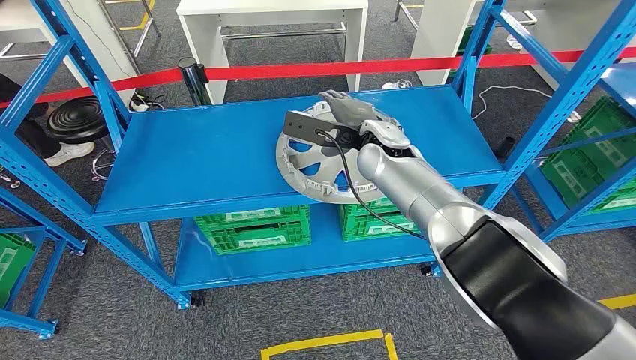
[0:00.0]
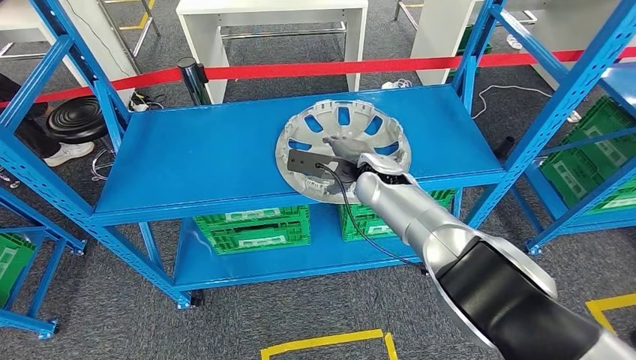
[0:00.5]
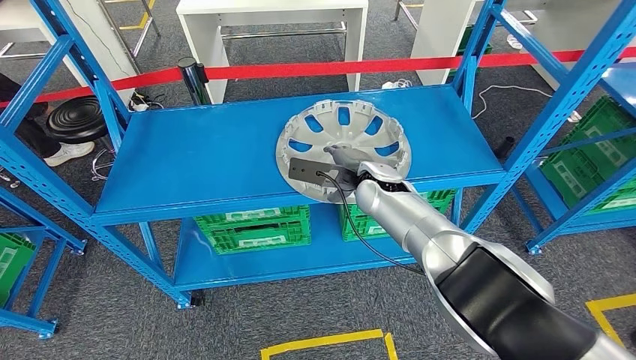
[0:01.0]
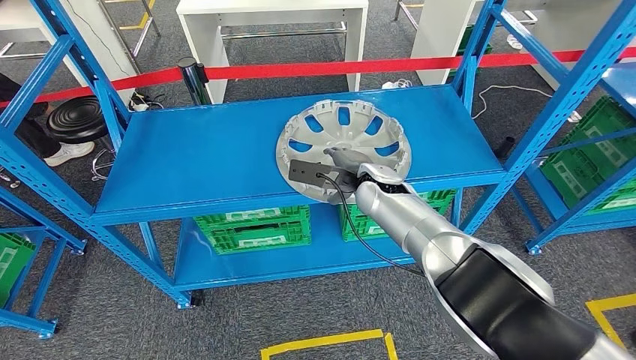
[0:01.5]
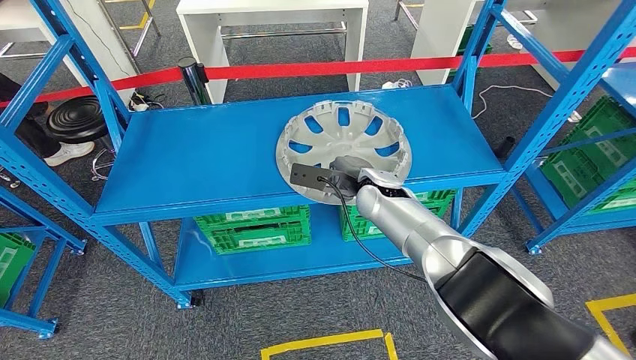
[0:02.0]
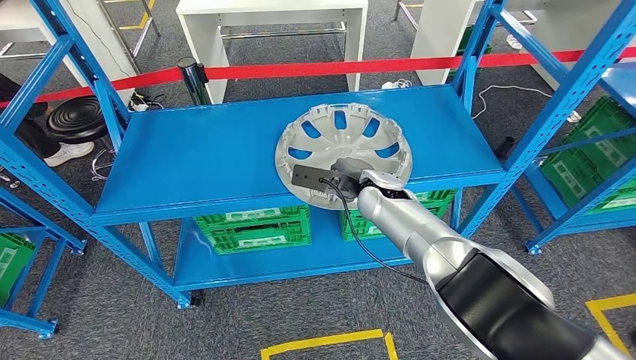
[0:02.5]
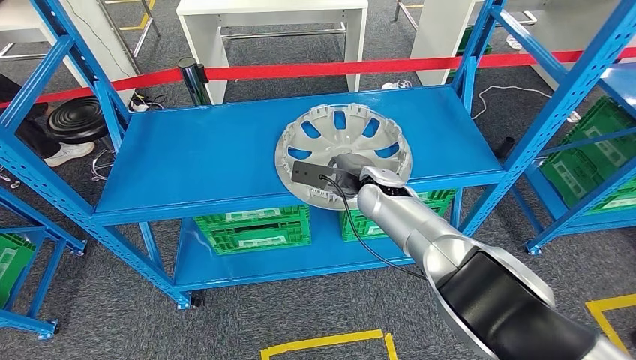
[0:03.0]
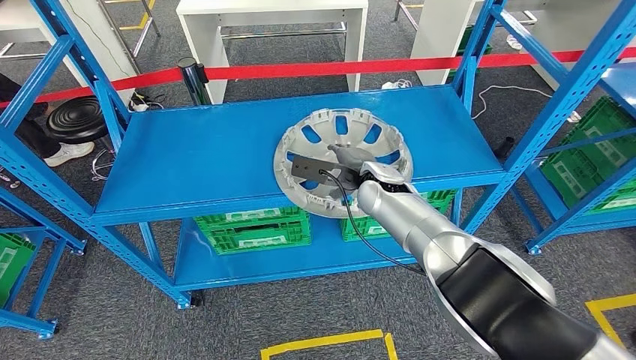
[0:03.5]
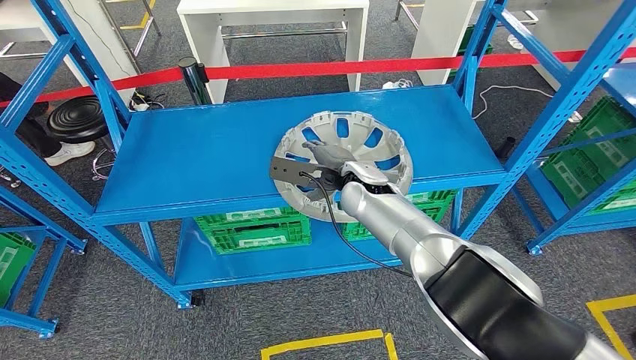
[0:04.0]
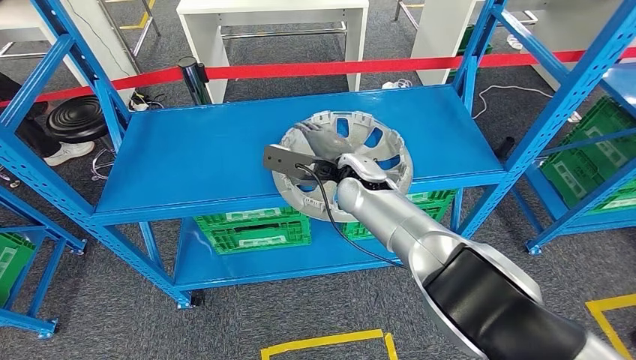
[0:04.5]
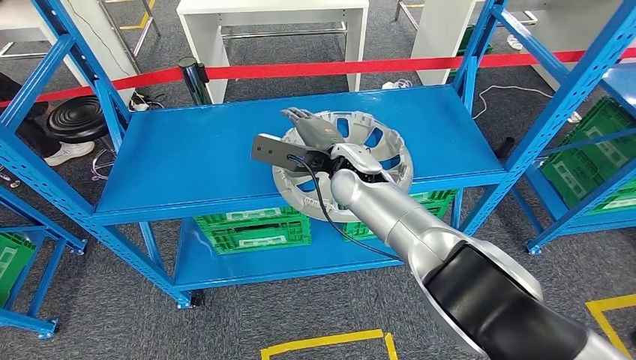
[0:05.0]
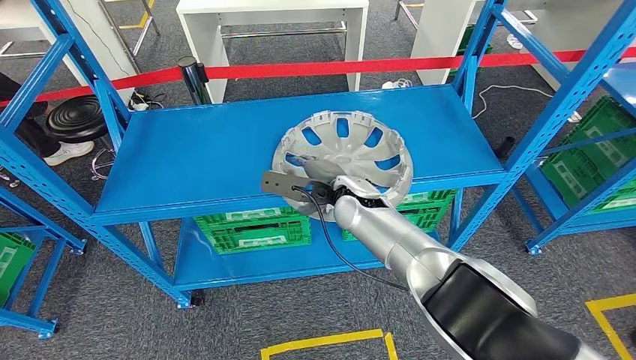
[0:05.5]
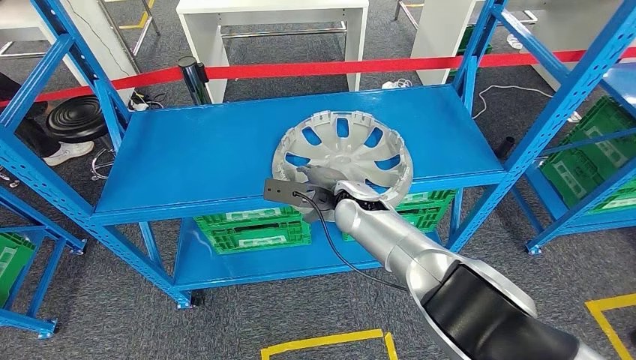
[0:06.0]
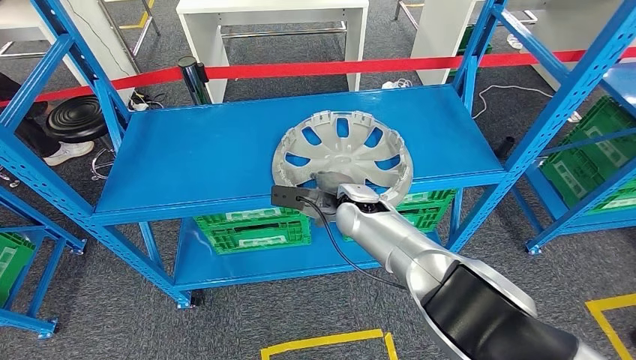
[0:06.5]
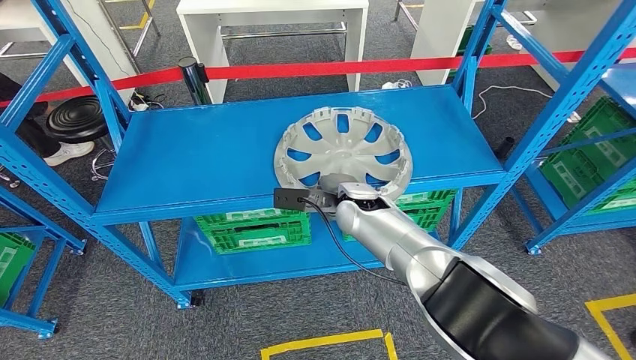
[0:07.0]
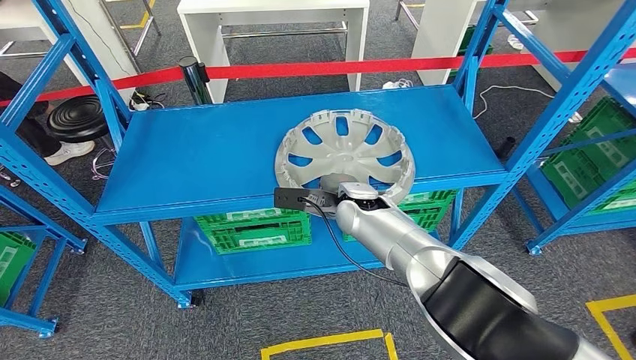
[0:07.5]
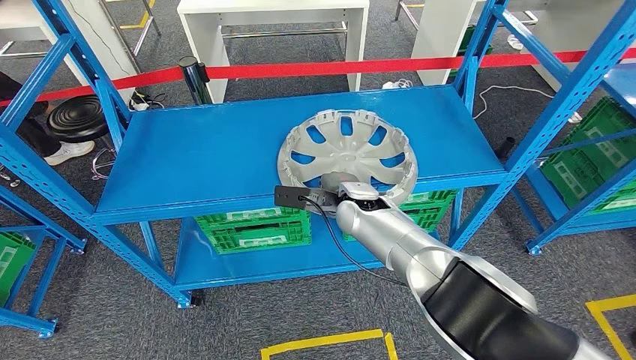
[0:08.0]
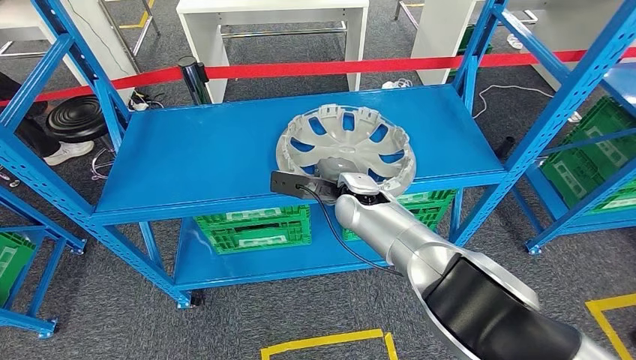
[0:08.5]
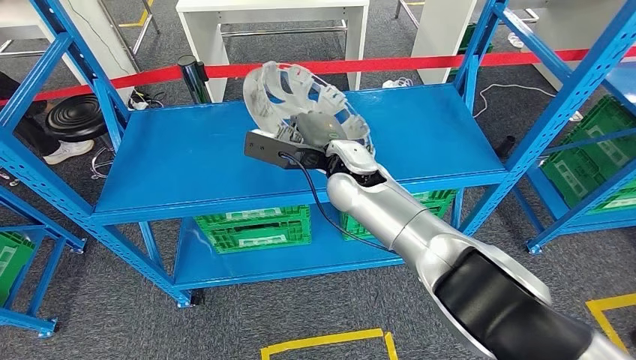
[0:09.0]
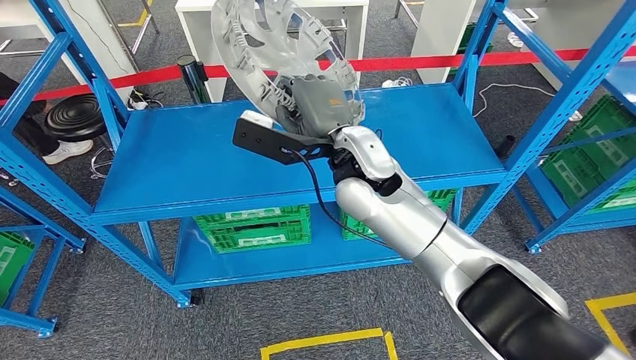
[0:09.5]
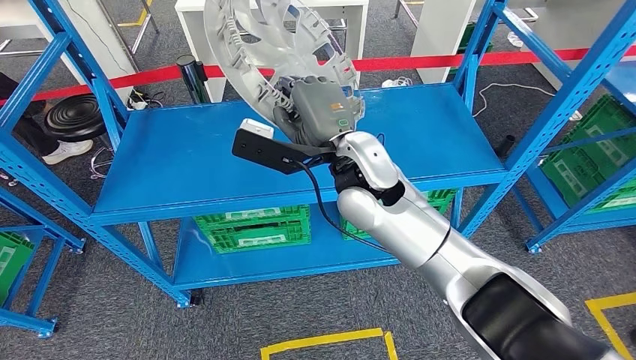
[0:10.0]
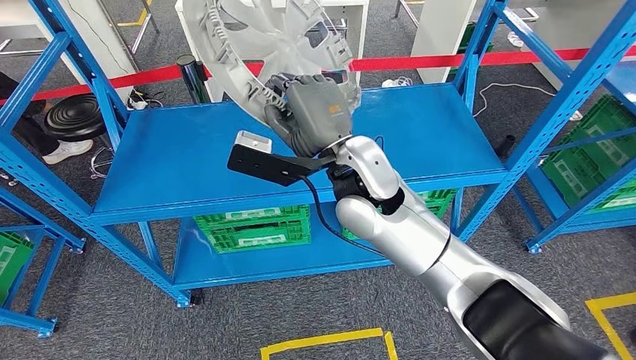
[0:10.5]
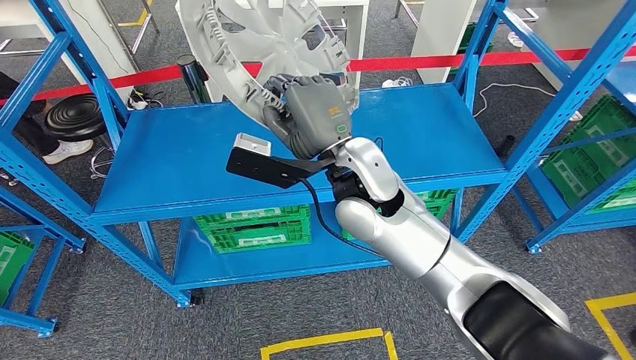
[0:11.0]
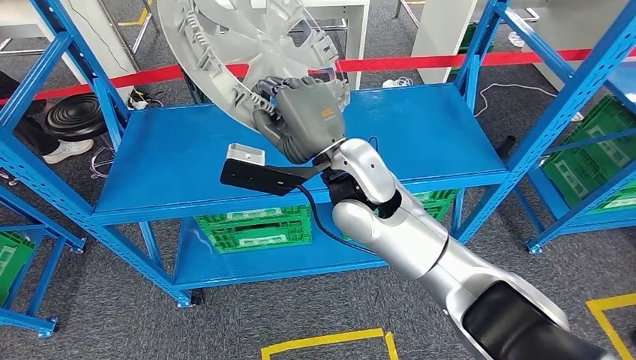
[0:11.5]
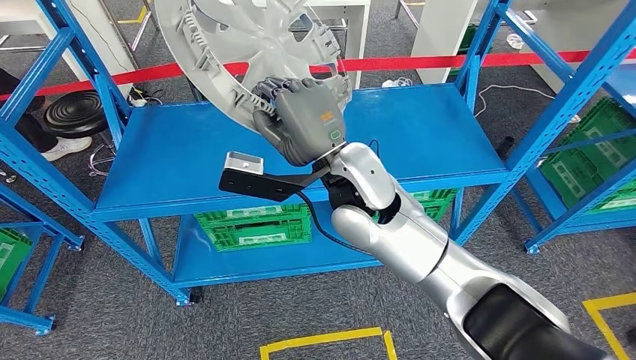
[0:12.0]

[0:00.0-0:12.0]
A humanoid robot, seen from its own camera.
Step, 0:00.0 to 0:12.0: Pick up the small parts from the shelf.
0:02.0 to 0:04.0: The hands move only a little.
0:04.0 to 0:08.0: There are only small adjustments of the hands.

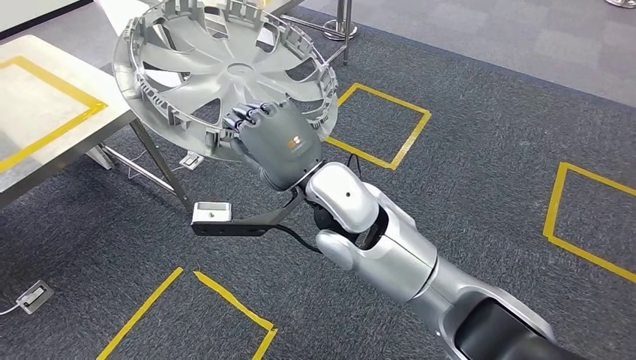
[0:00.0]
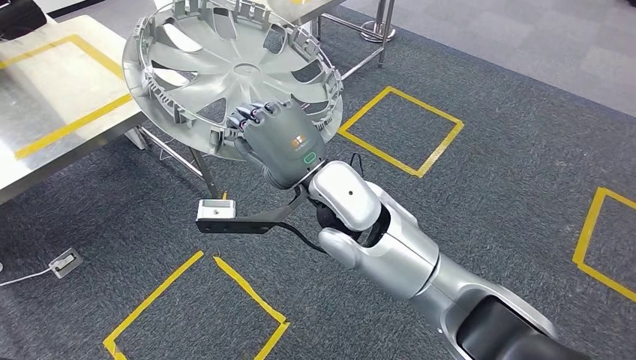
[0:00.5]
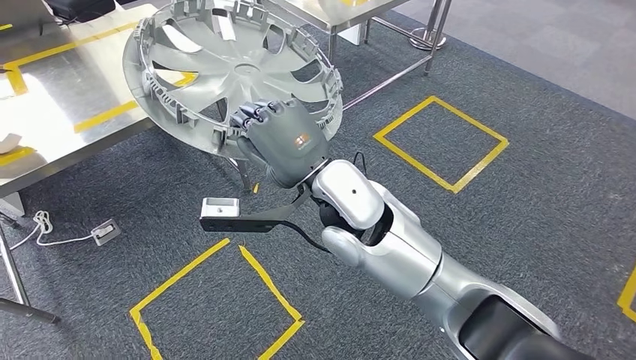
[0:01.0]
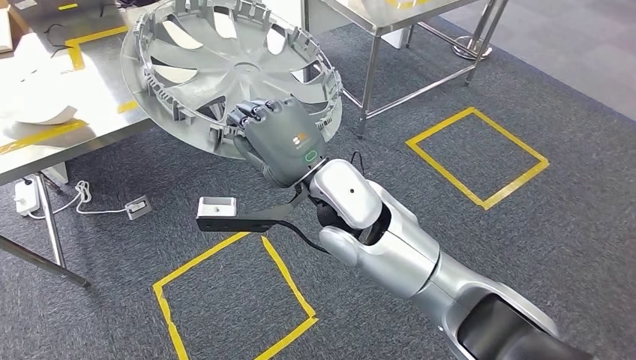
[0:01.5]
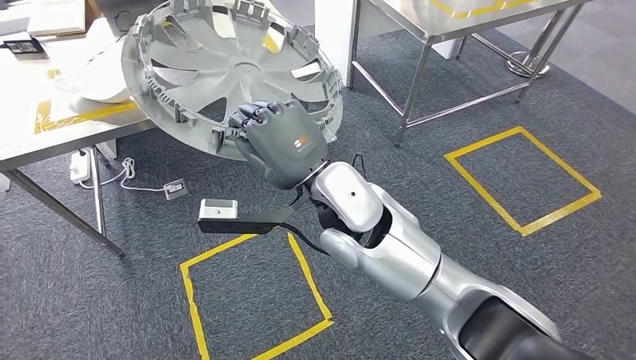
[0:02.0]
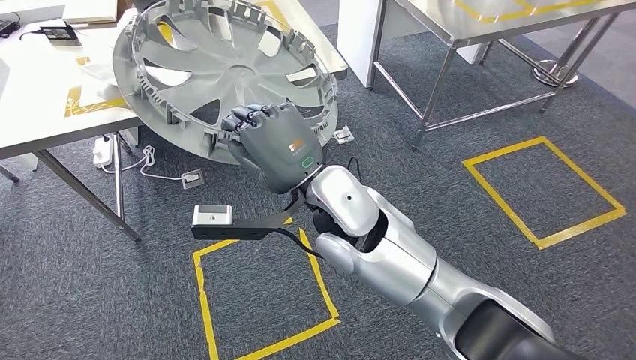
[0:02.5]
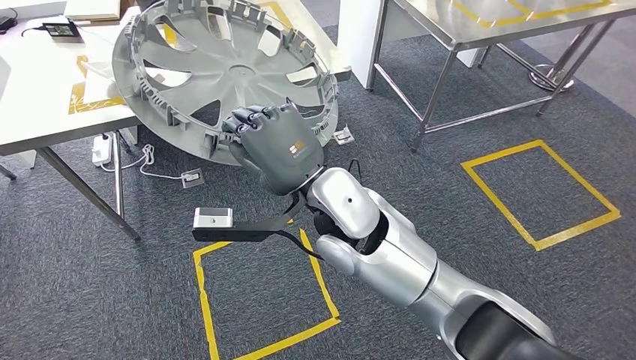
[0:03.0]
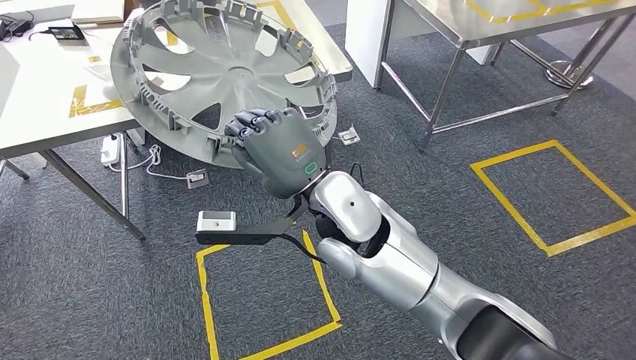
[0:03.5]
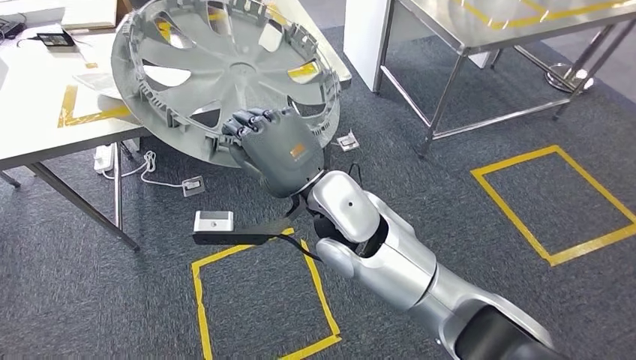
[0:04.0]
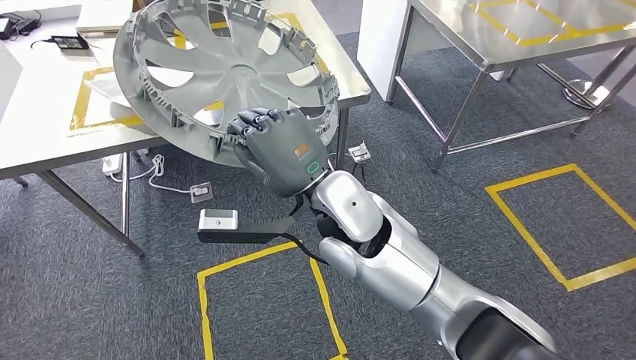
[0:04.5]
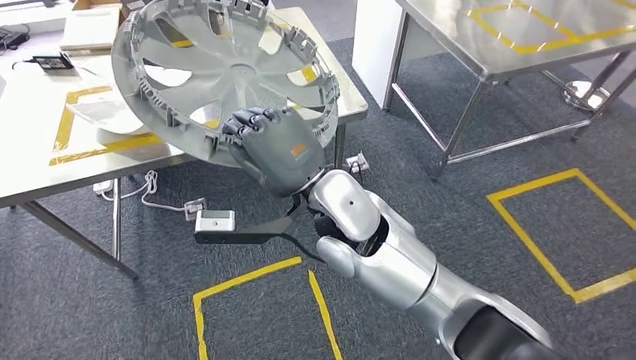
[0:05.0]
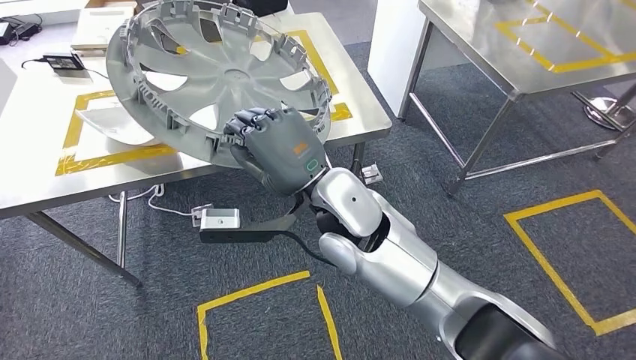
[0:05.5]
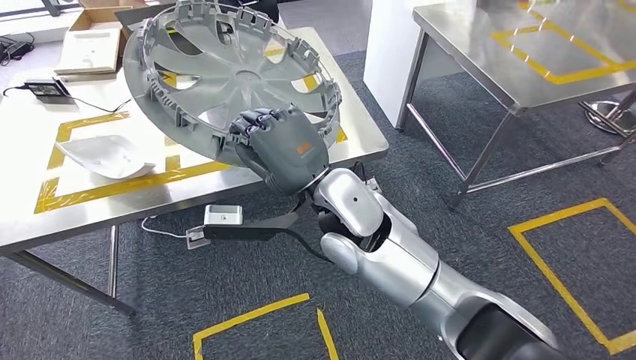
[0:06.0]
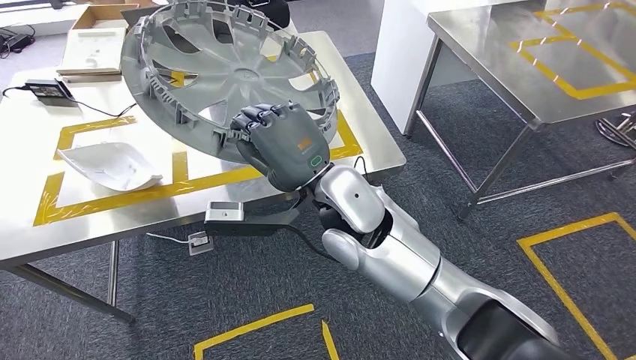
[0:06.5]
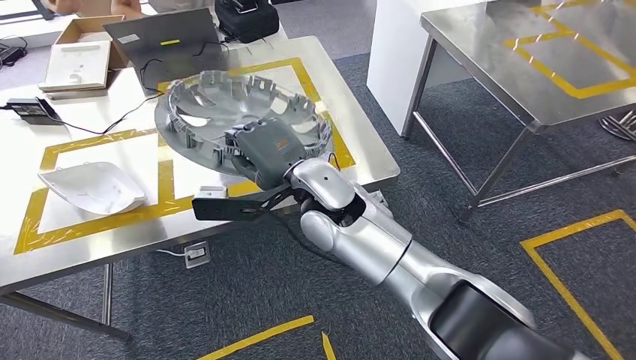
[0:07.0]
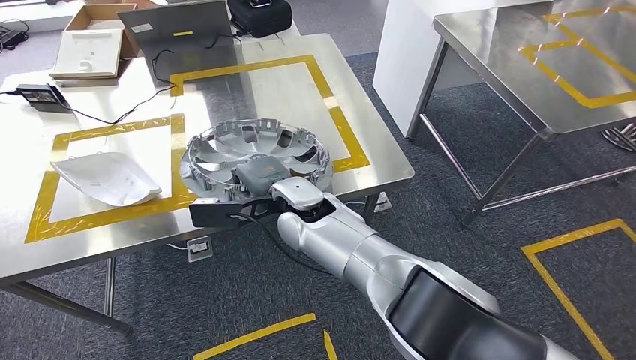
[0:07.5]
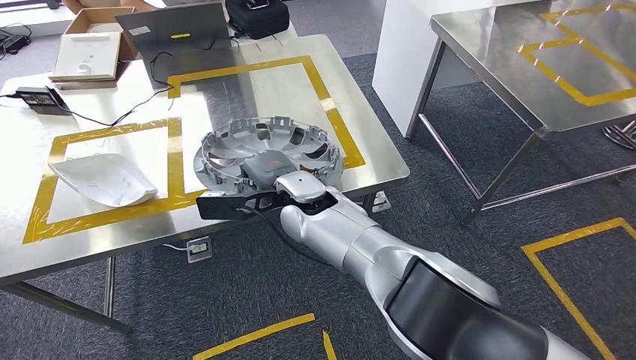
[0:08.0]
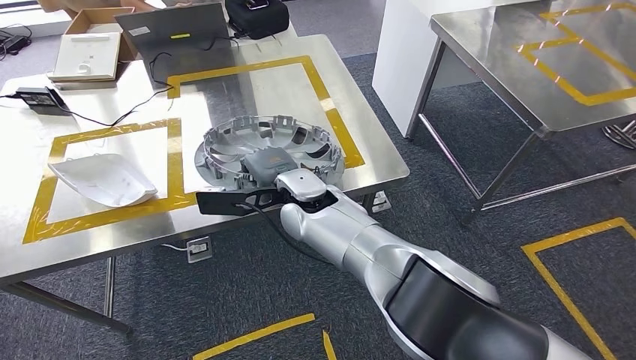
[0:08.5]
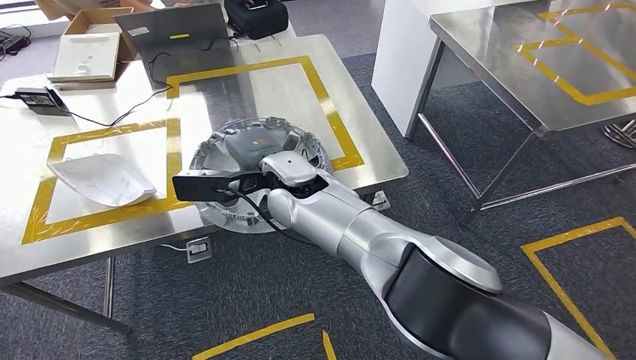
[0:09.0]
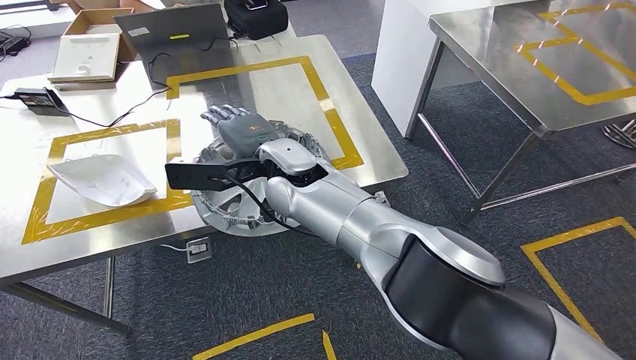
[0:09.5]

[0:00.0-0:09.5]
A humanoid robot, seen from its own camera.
Step, 0:00.0 to 0:06.5: Move the small parts to the workbench.
